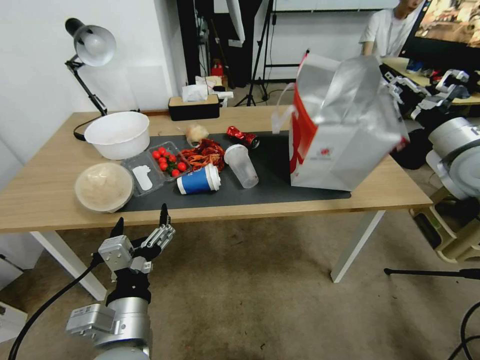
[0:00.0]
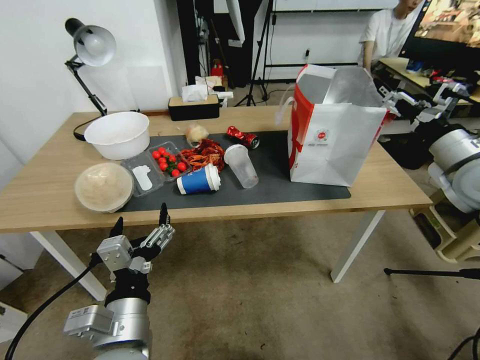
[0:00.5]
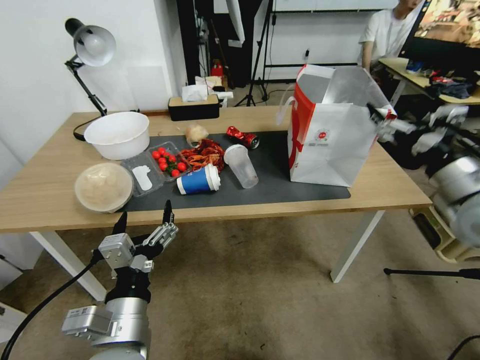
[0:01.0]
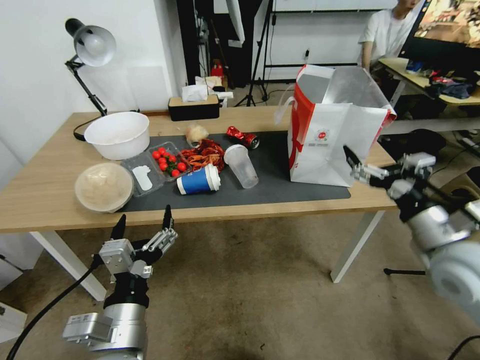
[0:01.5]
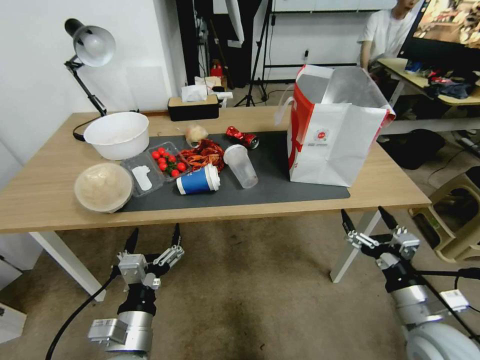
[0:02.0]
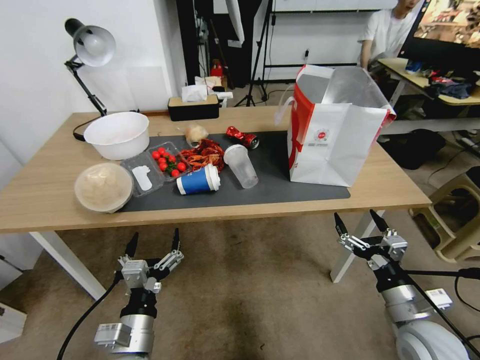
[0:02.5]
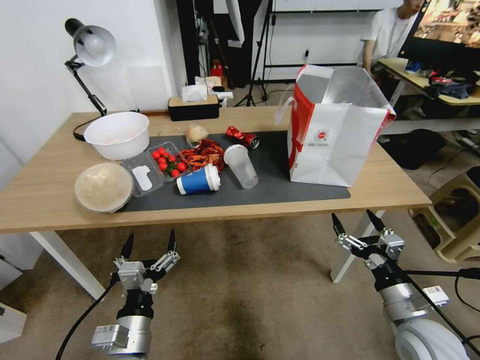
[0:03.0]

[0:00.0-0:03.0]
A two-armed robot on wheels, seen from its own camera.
Task of the whole recording: Pick up the food delivery bag from the floor and place it on the table.
0:00.0 to 0:01.5: The right gripper moves backward, downward and to the left, about 20 cm, and opens.
0:01.5 to 0:03.0: The right gripper travels downward and backward by approximately 15 cm. Meanwhile the left gripper travels downward by approximately 10 cm.
